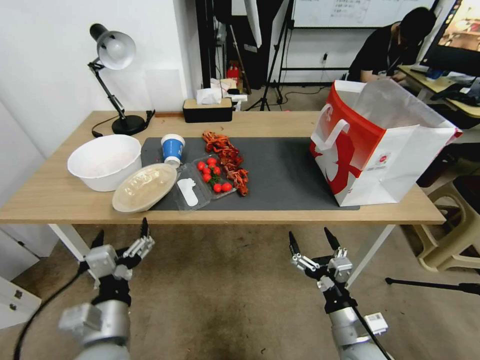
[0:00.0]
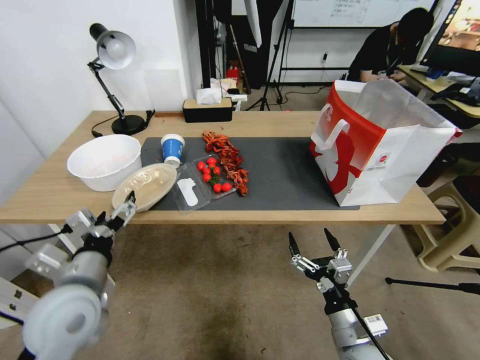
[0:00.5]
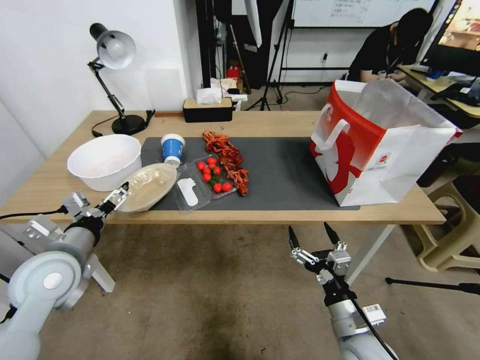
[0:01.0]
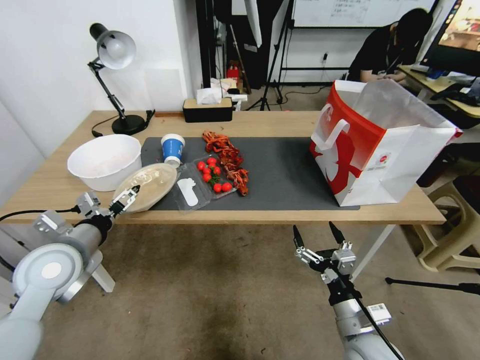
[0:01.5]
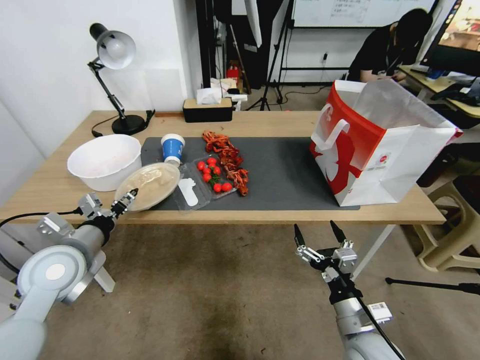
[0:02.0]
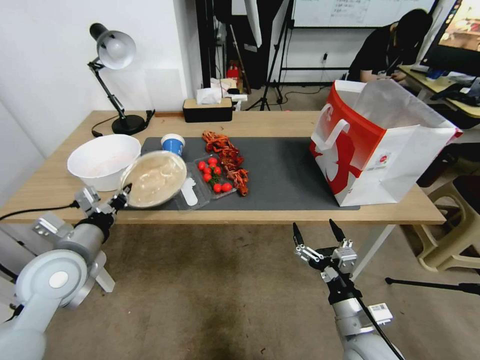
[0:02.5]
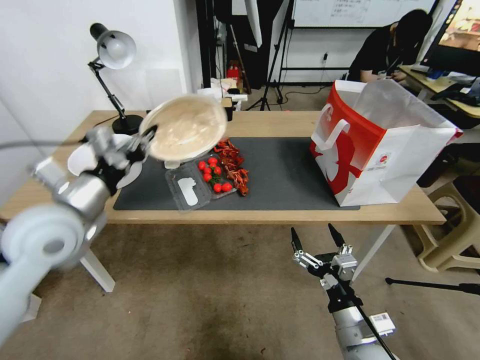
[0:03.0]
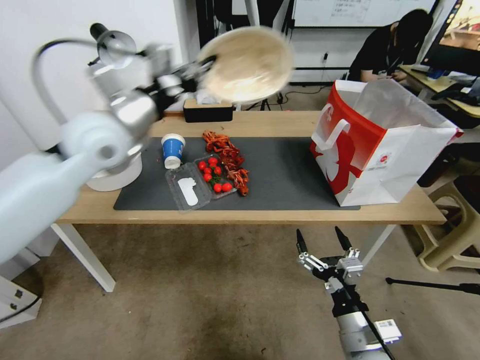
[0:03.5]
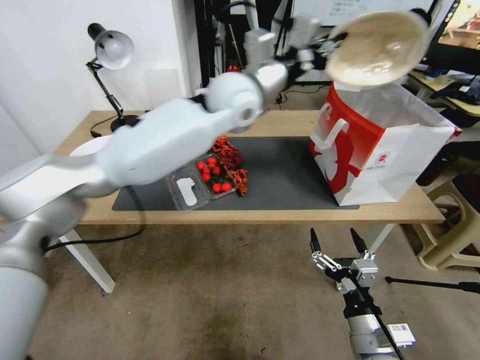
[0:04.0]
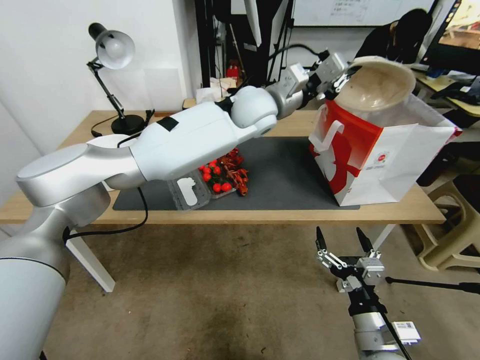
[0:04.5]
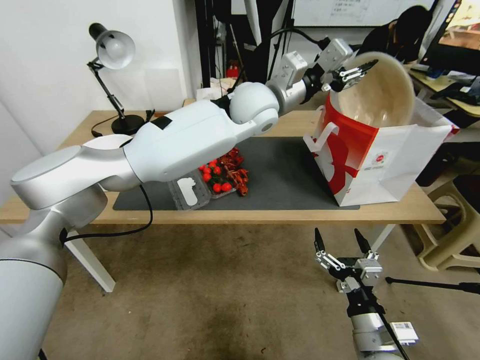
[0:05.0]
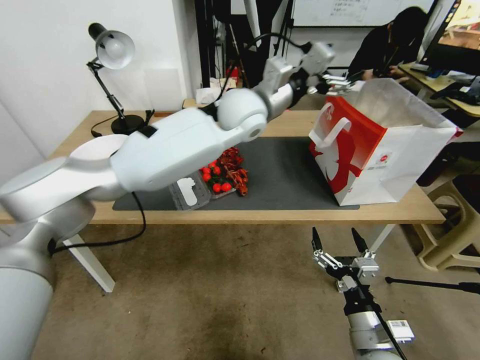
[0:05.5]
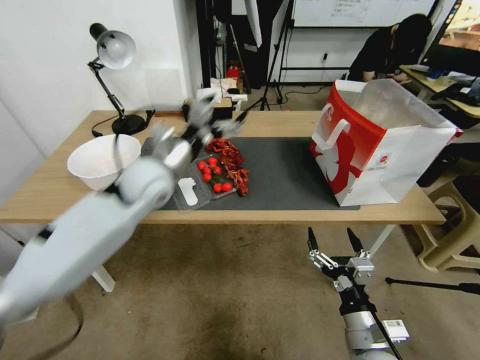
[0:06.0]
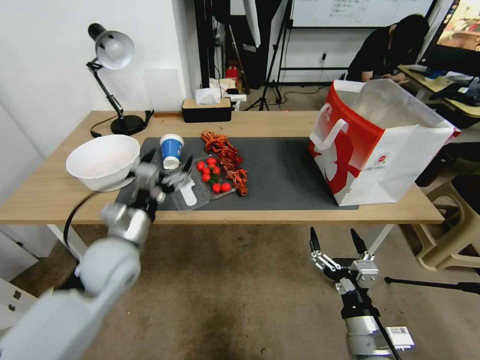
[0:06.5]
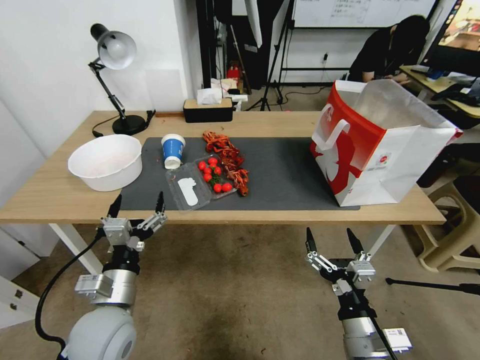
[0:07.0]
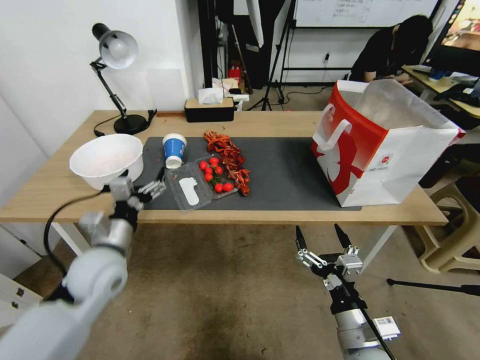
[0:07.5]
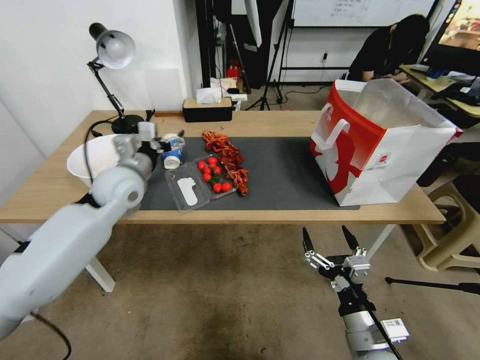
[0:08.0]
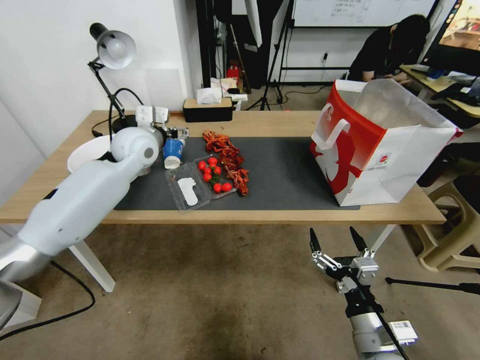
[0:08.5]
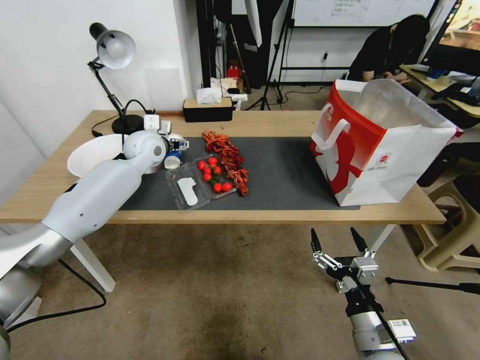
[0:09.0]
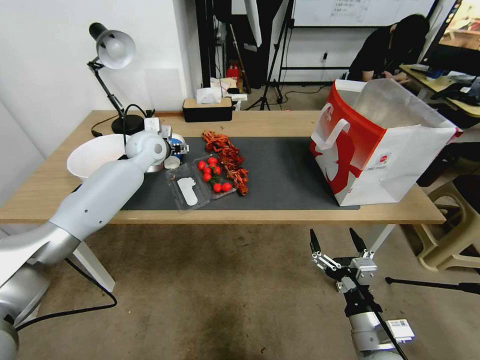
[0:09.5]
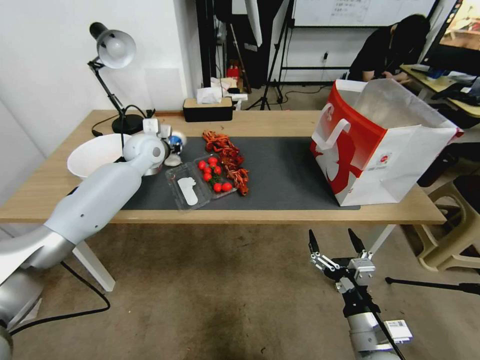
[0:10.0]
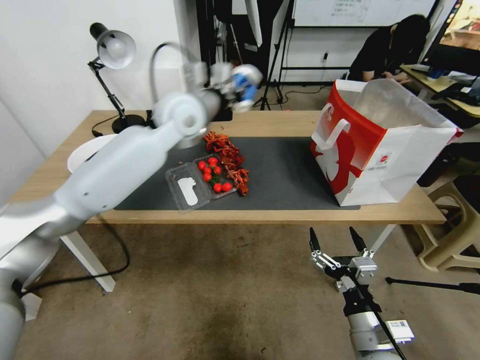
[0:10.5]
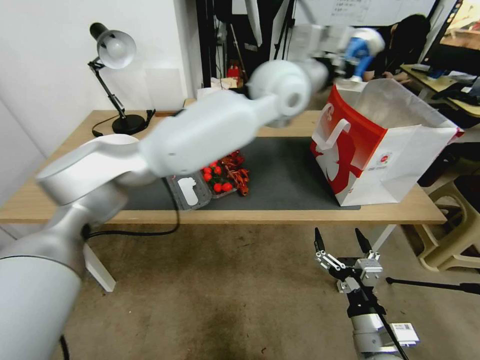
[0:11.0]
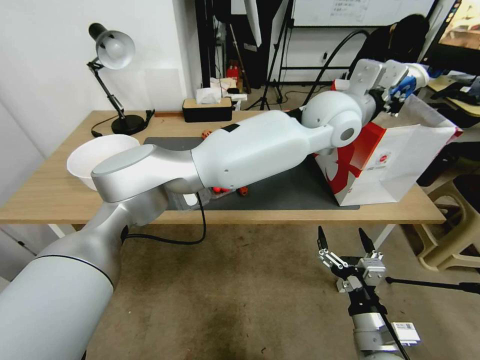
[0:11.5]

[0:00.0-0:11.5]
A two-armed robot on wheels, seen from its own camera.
0:00.0 to 0:02.0: The left gripper moves forward, to the left and upward, roughly 20 cm, and closes.
0:02.0 to 0:04.0: The left gripper travels to the right, forward and upward by about 40 cm, and closes its fingers.
0:04.0 to 0:06.0: The left gripper is displaced to the left, downward and backward by approximately 20 cm, and opens.
0:06.0 to 0:07.5: The left gripper travels backward and downward by roughly 25 cm.
0:07.5 to 0:09.5: The left gripper travels forward by some 35 cm.
0:09.5 to 0:11.5: The left gripper is displaced to the right by roughly 40 cm, and closes up.

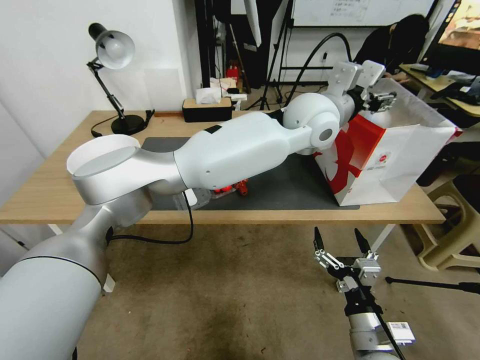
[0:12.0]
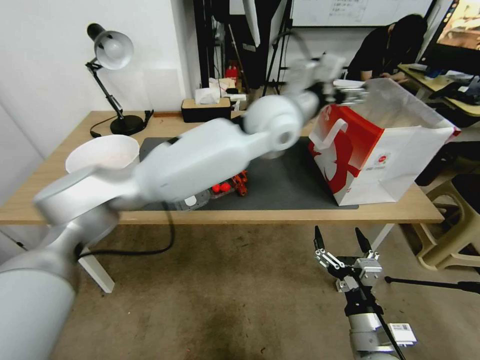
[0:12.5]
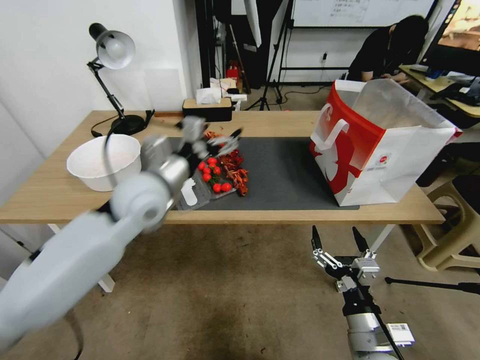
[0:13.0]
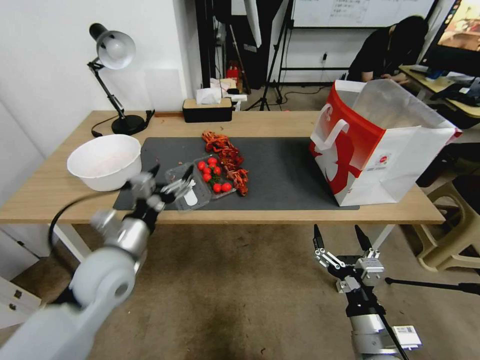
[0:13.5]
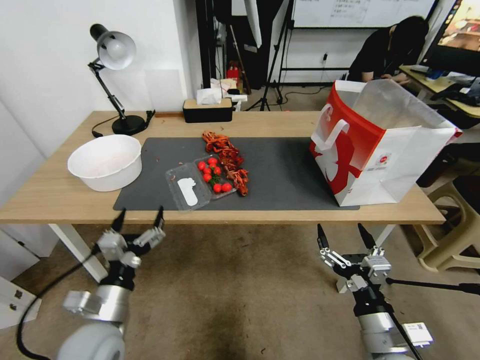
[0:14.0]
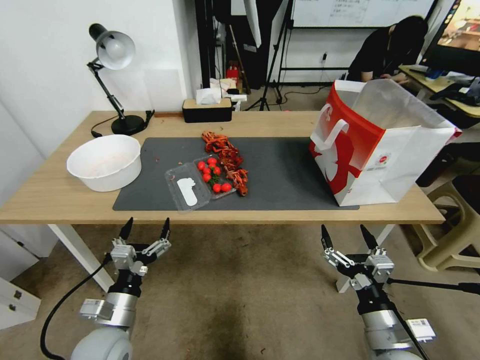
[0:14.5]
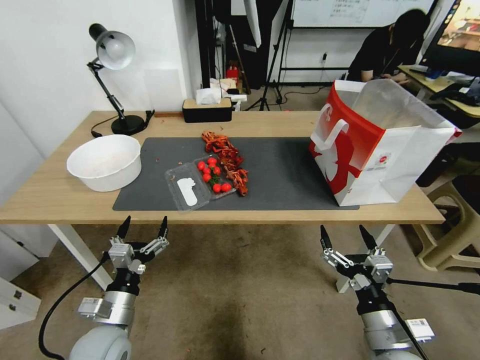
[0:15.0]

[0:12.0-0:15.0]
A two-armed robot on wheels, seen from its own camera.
0:12.0 to 0:13.5: The left gripper goes approximately 50 cm to the left, downward and backward.
0:13.5 to 0:15.0: The left gripper is displaced downward and backward by roughly 15 cm.

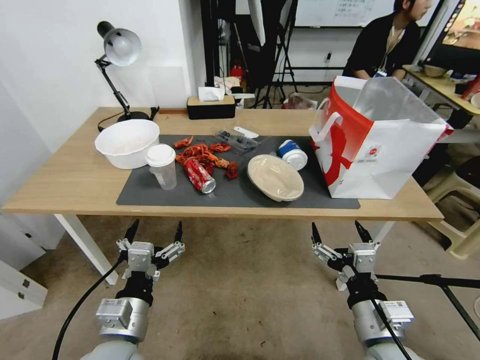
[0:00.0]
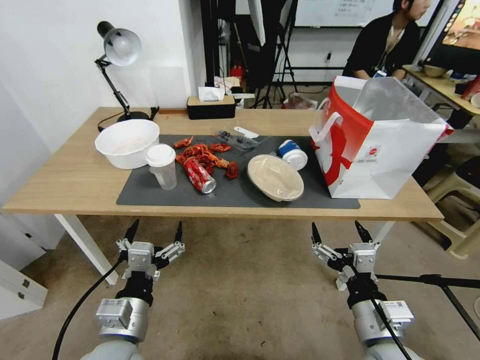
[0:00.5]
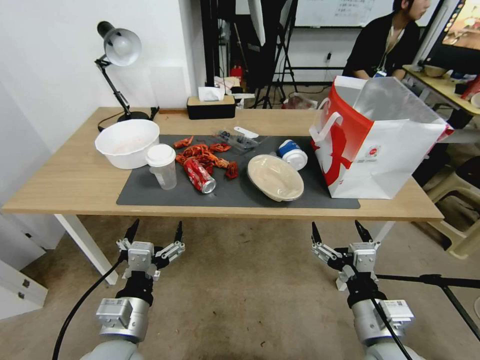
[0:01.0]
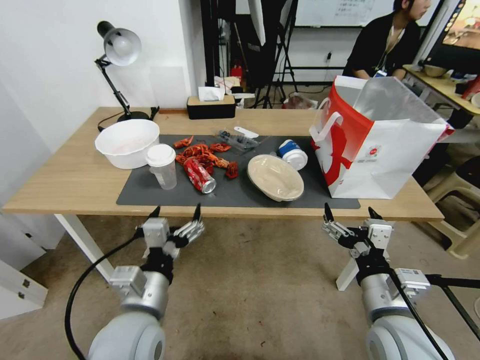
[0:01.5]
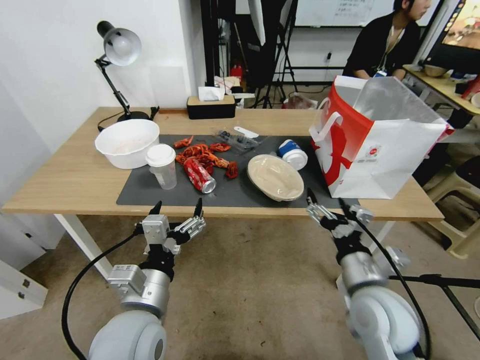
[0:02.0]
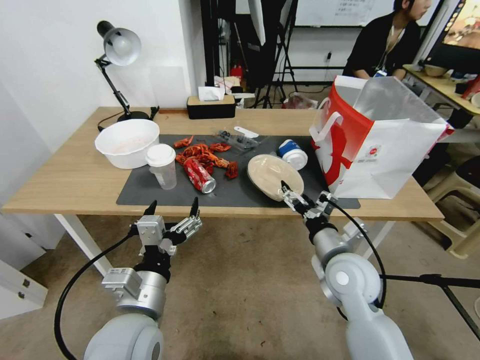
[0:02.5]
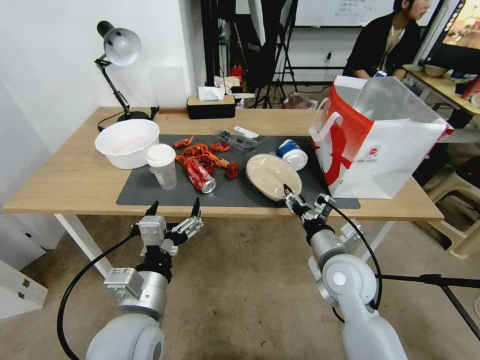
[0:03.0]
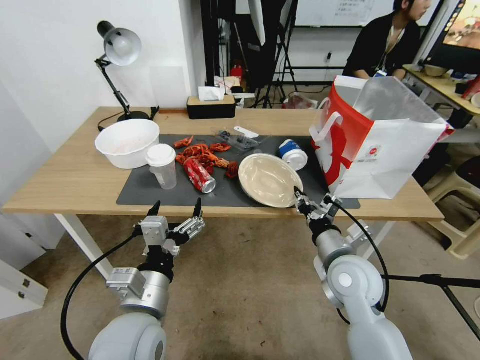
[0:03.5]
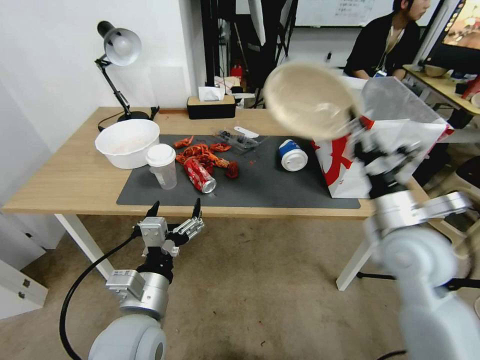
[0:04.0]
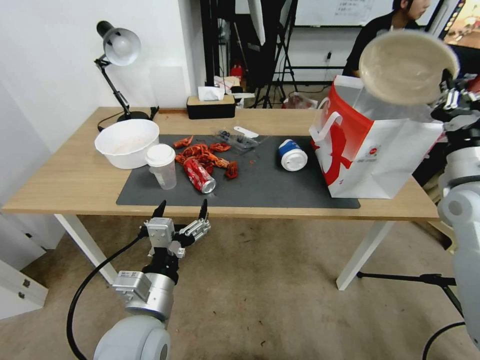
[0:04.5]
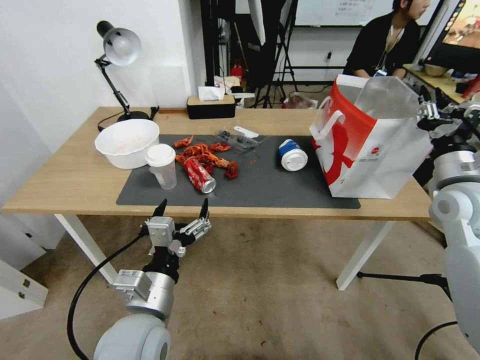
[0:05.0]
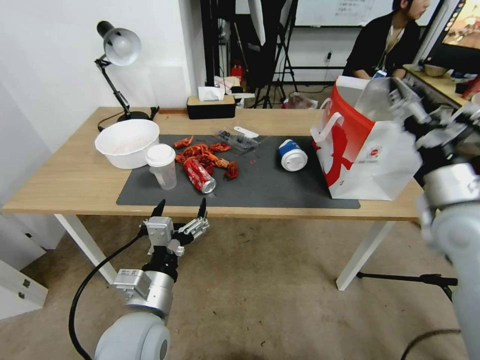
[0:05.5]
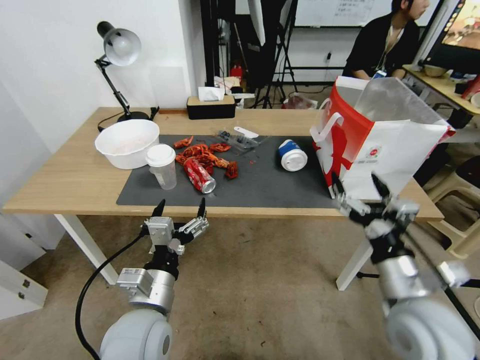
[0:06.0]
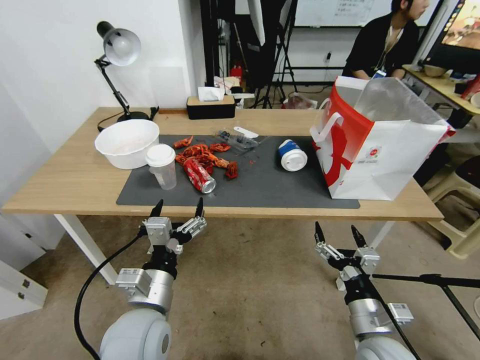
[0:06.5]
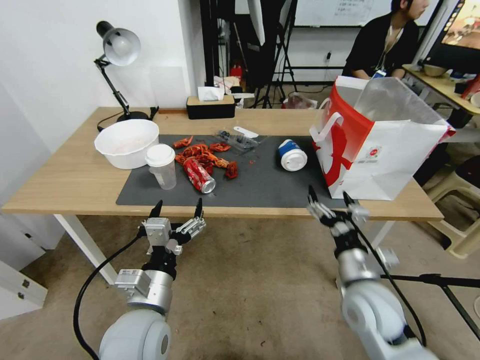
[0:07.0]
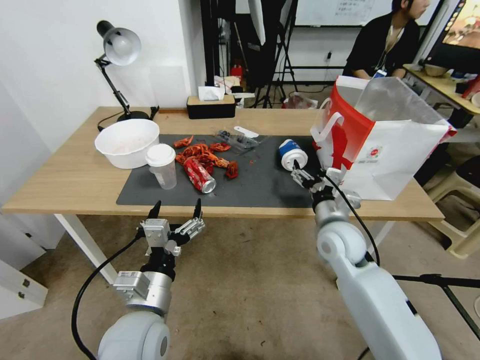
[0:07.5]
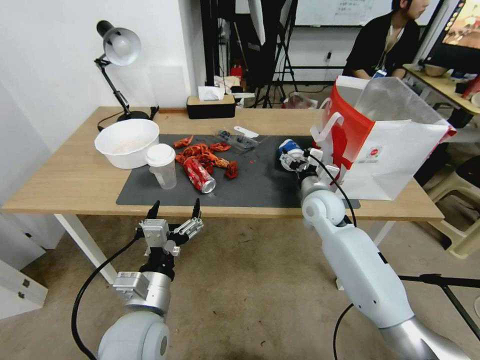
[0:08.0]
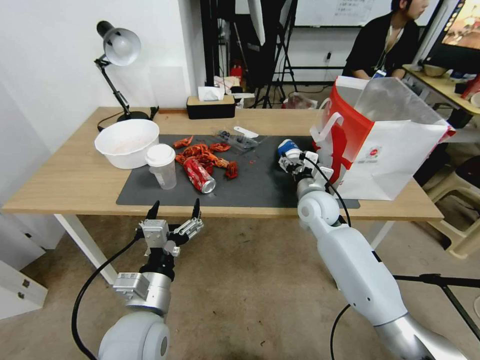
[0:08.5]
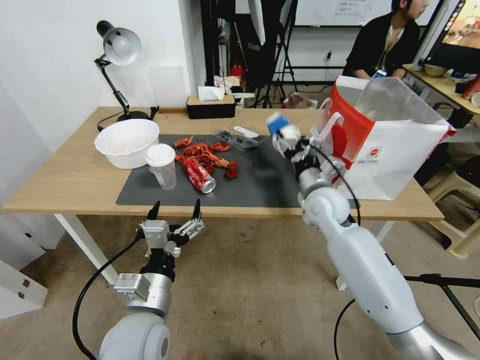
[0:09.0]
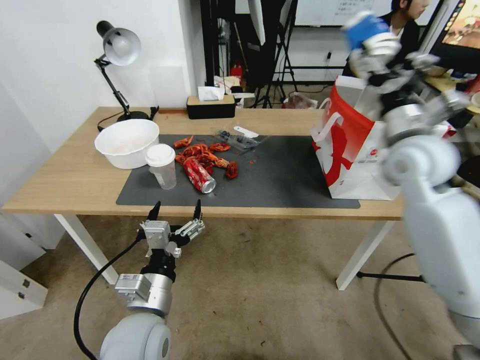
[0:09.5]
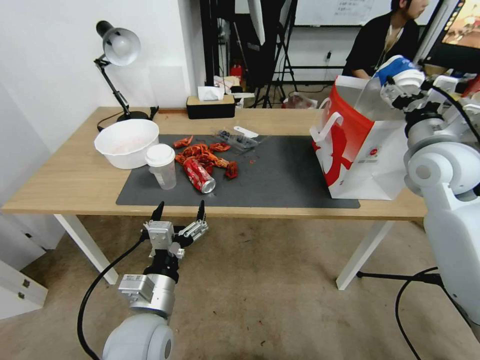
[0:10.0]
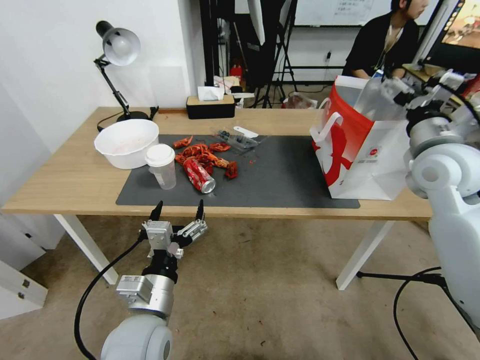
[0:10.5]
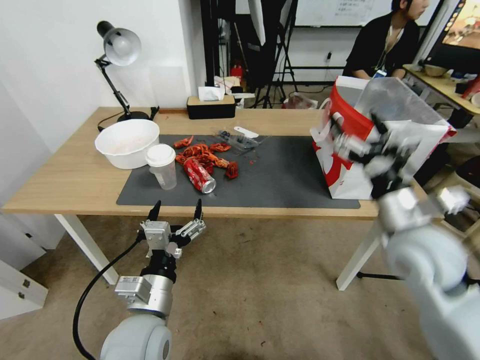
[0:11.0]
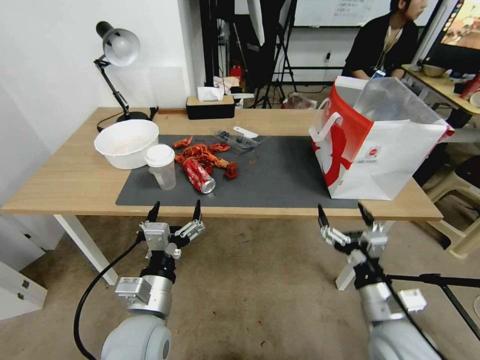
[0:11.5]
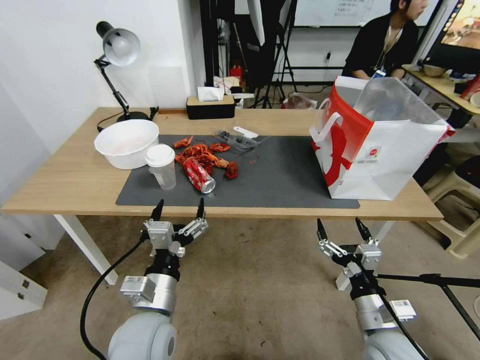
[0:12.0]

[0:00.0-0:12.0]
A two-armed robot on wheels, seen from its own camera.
0:02.0 to 0:04.0: The right gripper goes some 10 cm upward and forward, and closes up.
0:04.0 to 0:06.0: The right gripper is displaced backward by approximately 10 cm, and opens.
0:06.0 to 0:08.0: The right gripper travels forward by about 25 cm.
0:08.0 to 0:10.0: The right gripper goes approximately 25 cm upward and to the right.
0:10.0 to 0:12.0: The right gripper shifts roughly 35 cm downward and backward.
